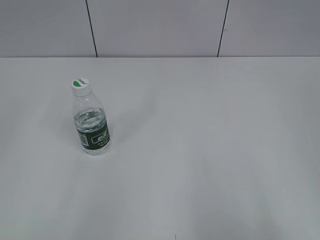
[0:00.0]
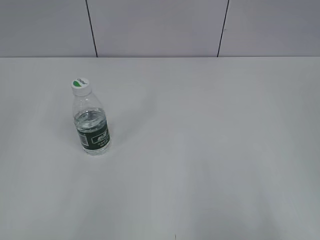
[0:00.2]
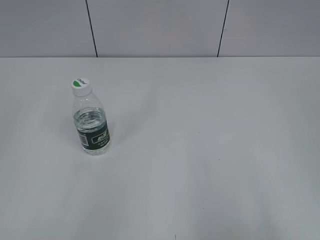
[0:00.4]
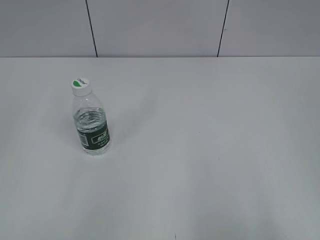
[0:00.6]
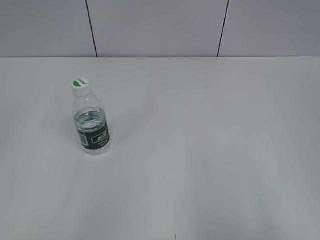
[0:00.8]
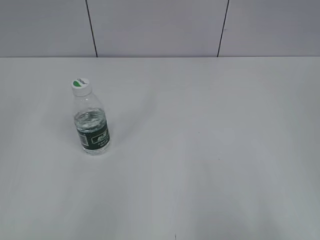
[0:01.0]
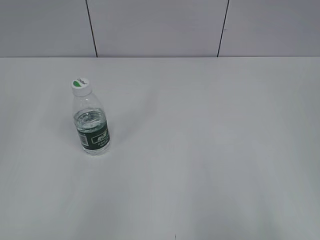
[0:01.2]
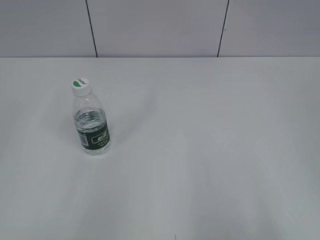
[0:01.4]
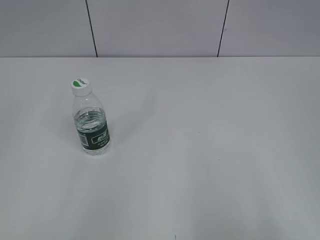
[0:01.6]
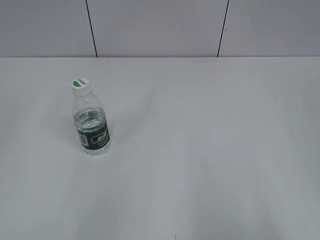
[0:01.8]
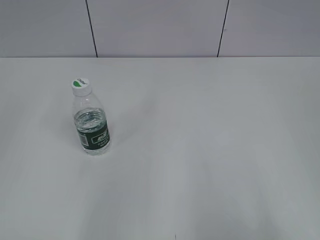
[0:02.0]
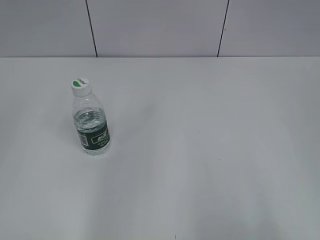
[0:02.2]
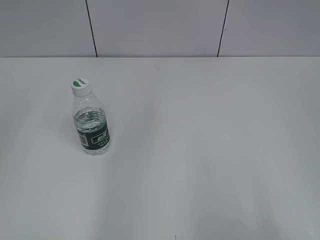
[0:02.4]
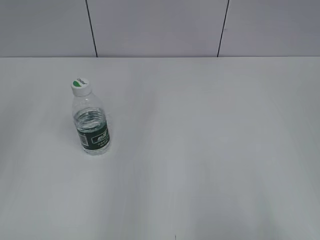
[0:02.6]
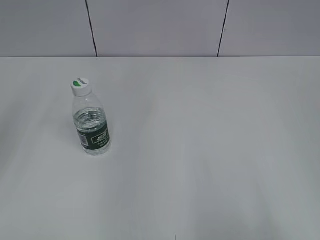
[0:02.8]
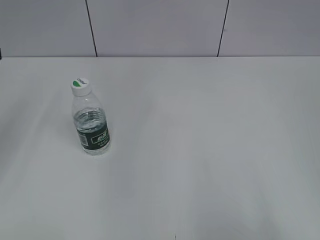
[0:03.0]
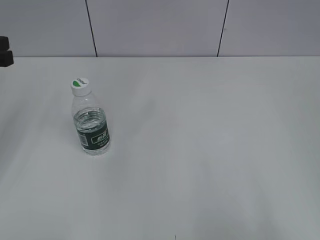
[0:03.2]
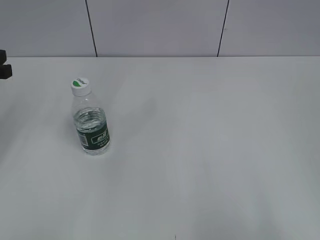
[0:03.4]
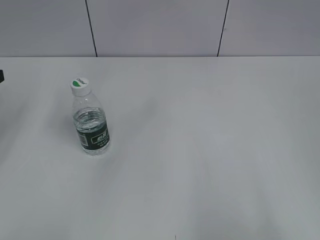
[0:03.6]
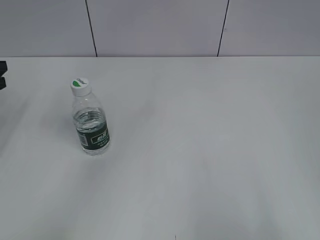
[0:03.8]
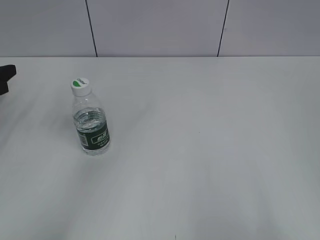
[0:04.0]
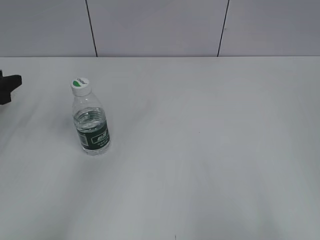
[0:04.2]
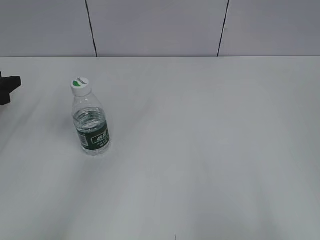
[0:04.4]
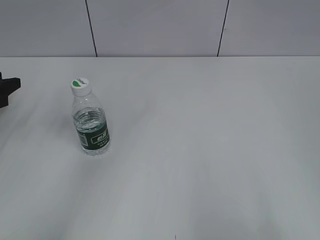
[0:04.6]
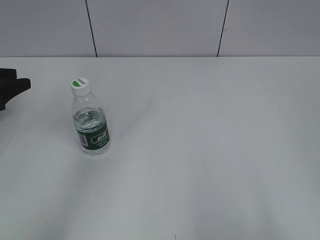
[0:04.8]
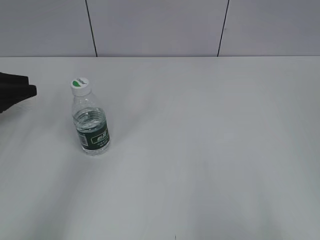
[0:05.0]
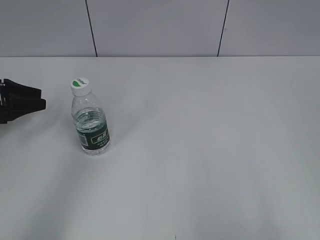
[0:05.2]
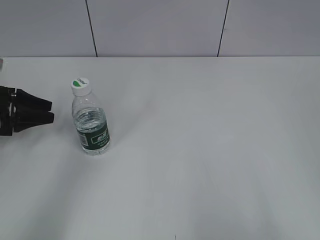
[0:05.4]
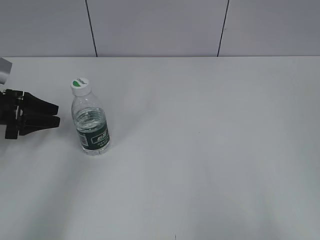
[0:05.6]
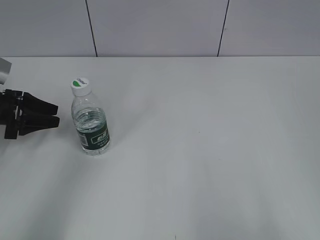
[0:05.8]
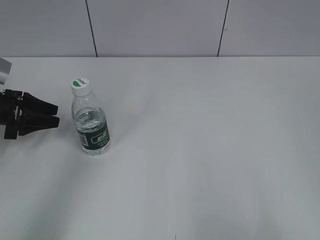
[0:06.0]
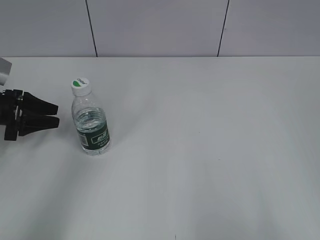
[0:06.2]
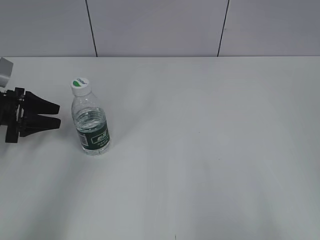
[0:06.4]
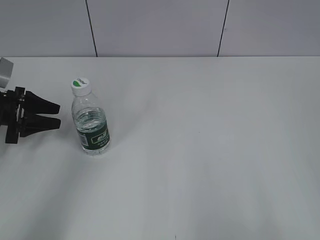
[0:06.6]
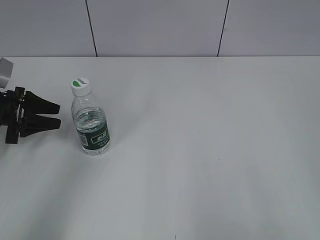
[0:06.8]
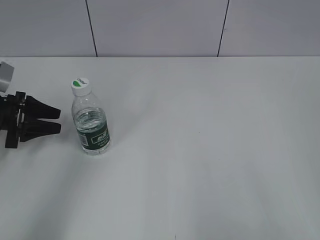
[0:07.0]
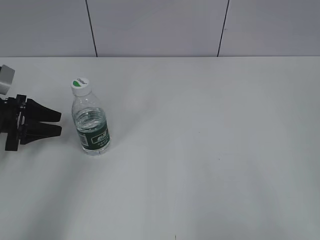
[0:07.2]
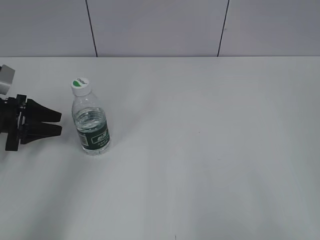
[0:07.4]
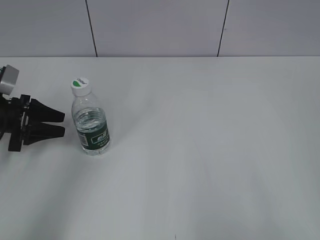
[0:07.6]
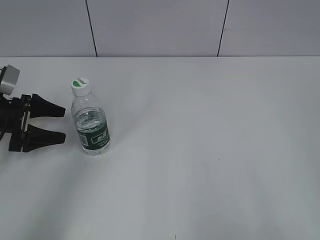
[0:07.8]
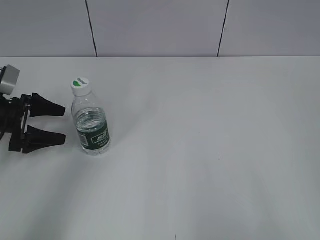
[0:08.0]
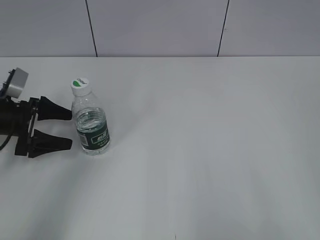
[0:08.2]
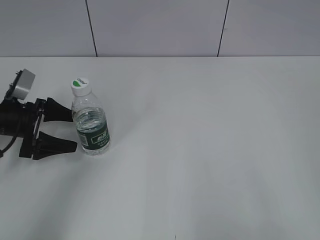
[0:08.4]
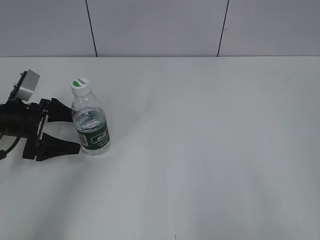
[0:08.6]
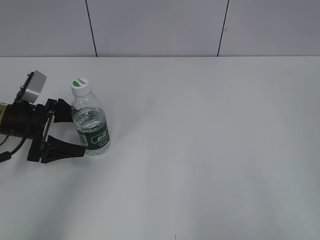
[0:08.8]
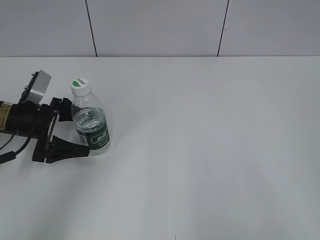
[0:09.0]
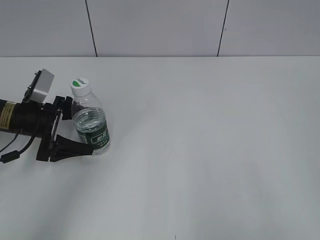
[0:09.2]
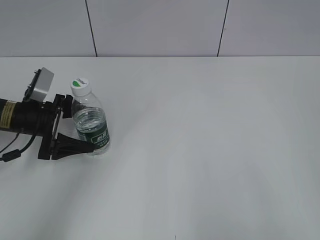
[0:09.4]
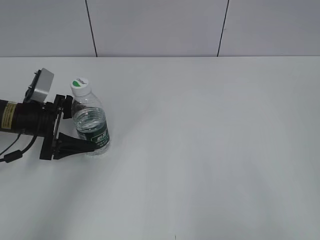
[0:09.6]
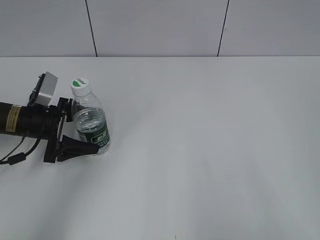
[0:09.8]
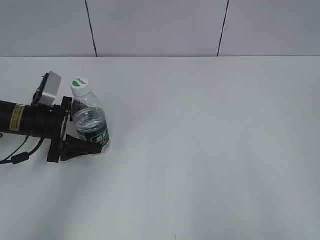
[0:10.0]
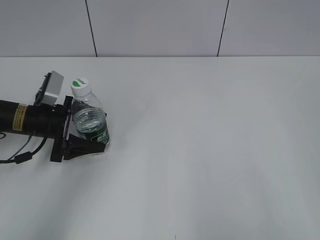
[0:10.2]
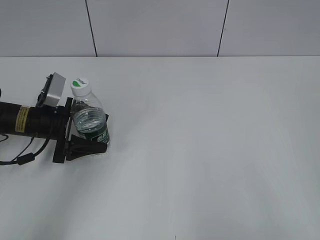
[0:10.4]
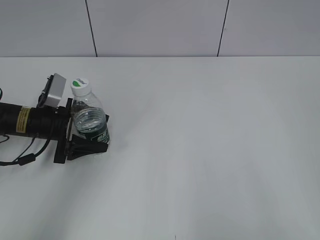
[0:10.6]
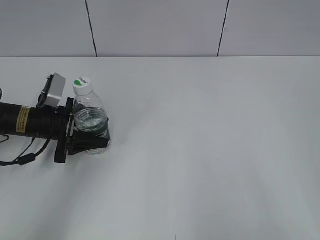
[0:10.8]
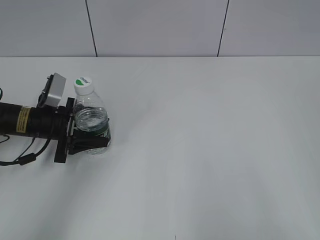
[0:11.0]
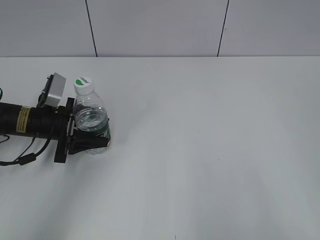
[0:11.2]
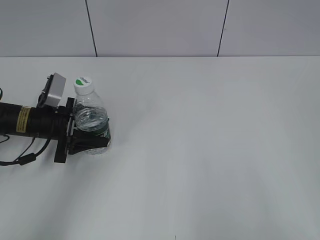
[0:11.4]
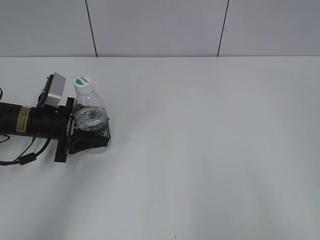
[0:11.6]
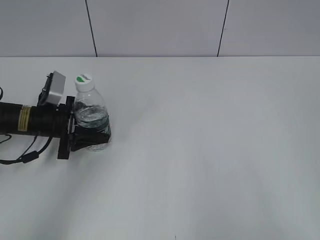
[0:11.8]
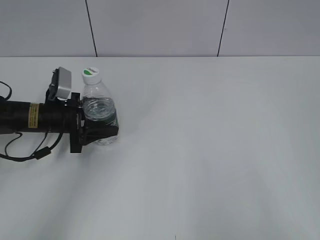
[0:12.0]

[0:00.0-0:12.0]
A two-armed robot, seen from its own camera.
Step, 0:00.0 to 0:11.4: Grasp the bottle and move it to the center of the table with the left gripper.
0:03.0 to 0:04.4: The left gripper shifts roughly 15 cm downward, forward and to the left.
0:04.4 to 0:06.0: The left gripper changes place by roughly 5 cm.
0:06.0 to 0:07.6: There are only small adjustments of the grippers.
0:07.6 to 0:09.0: The left gripper goes approximately 5 cm to the right, and opens up.
0:09.0 to 0:10.4: The grippers make only small movements.
0:10.4 to 0:12.0: The left gripper closes up.

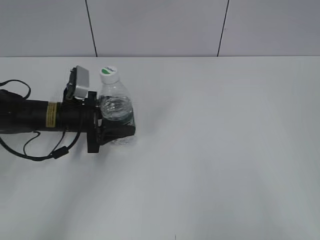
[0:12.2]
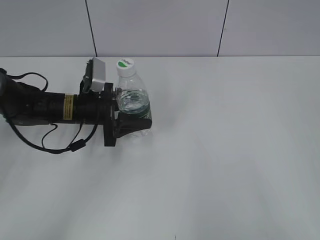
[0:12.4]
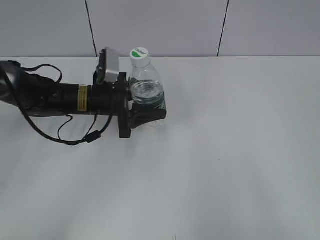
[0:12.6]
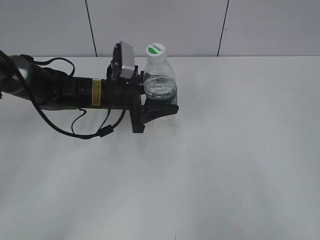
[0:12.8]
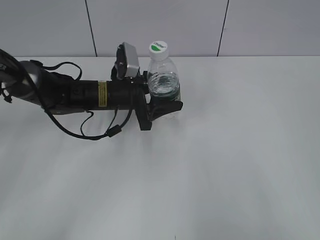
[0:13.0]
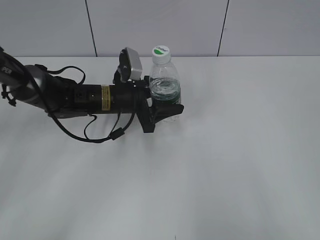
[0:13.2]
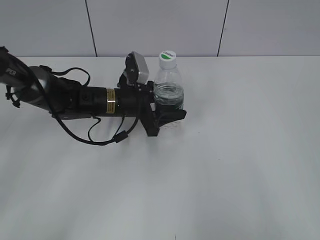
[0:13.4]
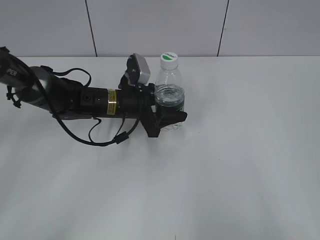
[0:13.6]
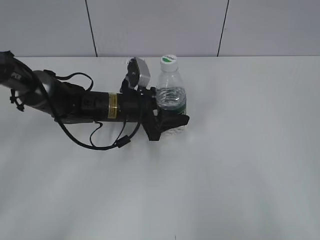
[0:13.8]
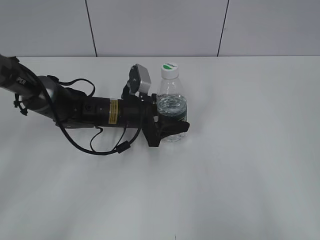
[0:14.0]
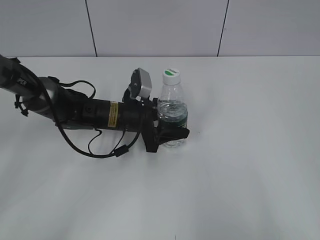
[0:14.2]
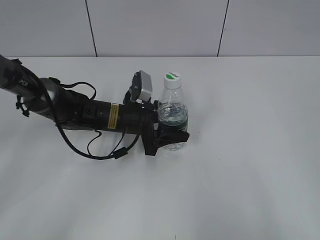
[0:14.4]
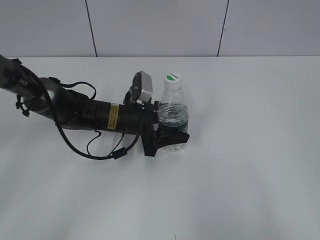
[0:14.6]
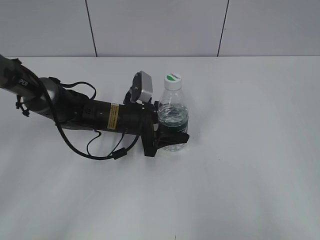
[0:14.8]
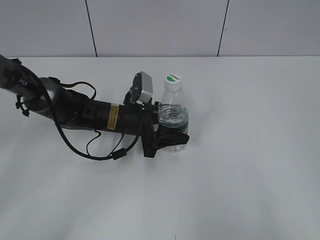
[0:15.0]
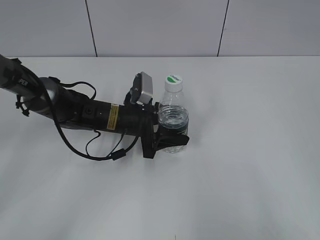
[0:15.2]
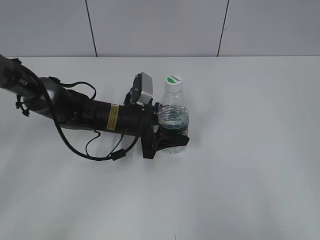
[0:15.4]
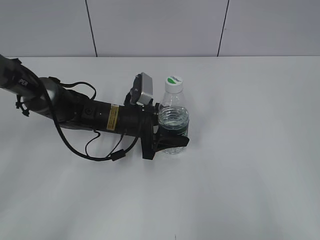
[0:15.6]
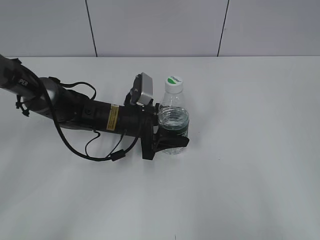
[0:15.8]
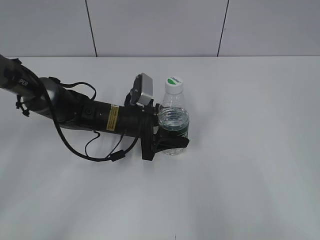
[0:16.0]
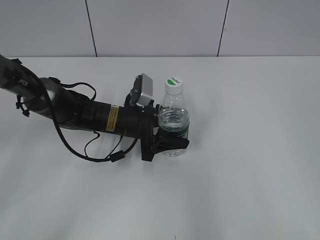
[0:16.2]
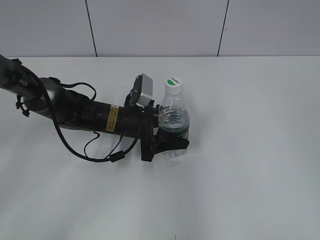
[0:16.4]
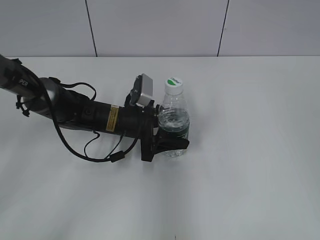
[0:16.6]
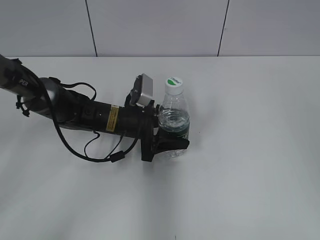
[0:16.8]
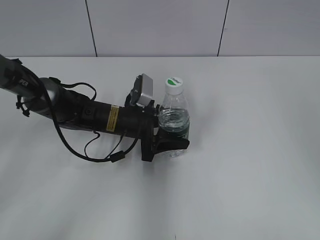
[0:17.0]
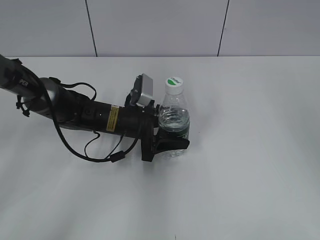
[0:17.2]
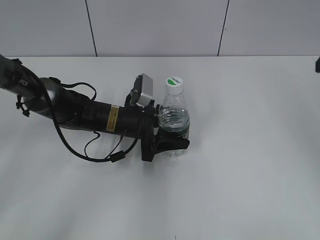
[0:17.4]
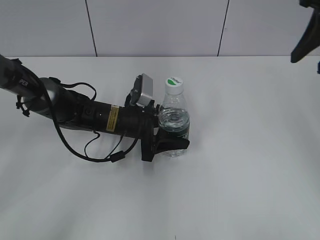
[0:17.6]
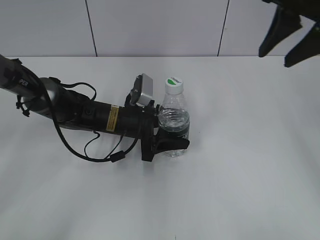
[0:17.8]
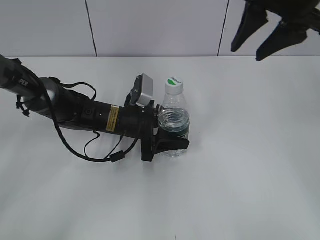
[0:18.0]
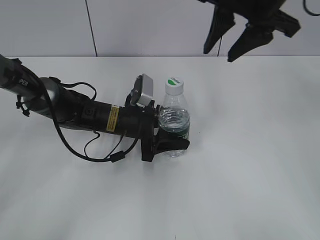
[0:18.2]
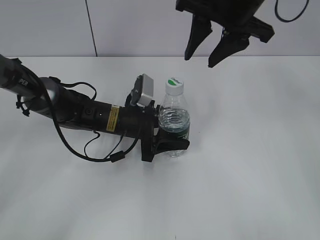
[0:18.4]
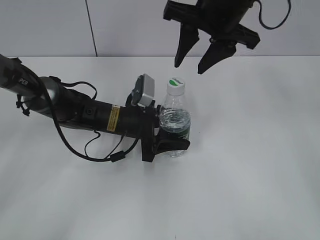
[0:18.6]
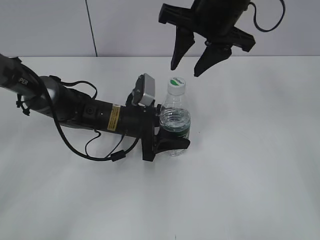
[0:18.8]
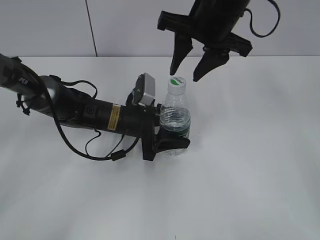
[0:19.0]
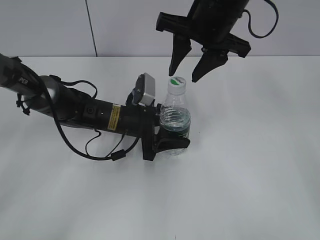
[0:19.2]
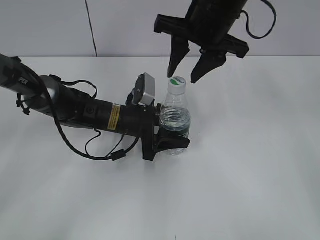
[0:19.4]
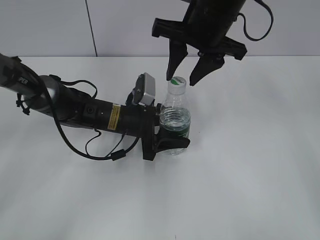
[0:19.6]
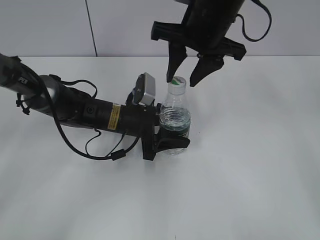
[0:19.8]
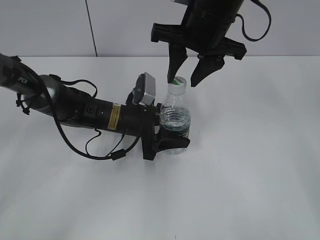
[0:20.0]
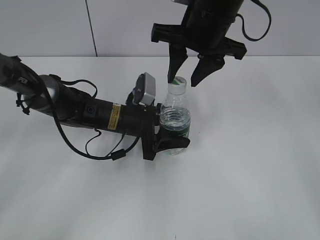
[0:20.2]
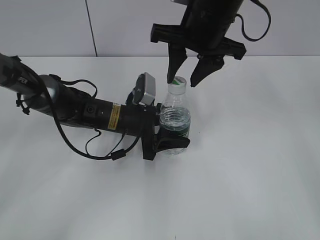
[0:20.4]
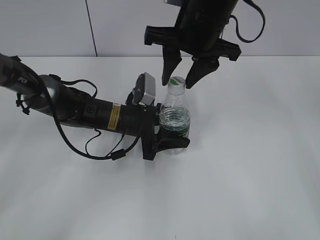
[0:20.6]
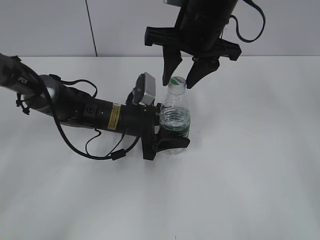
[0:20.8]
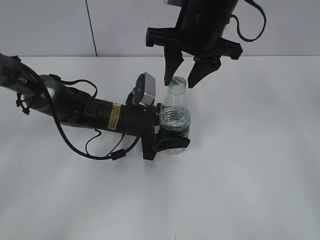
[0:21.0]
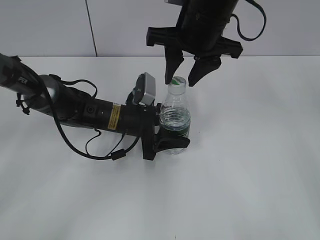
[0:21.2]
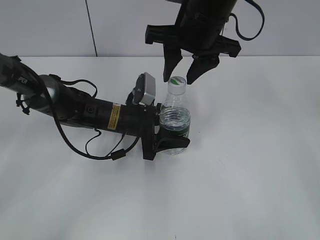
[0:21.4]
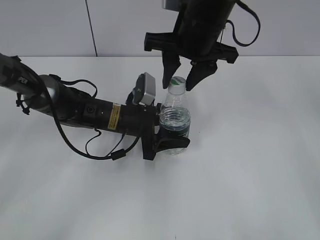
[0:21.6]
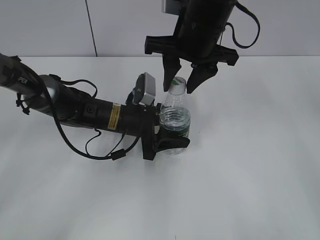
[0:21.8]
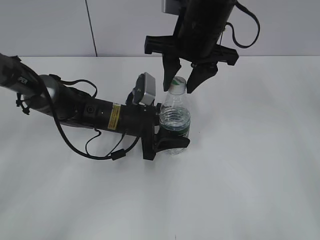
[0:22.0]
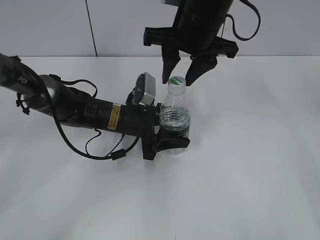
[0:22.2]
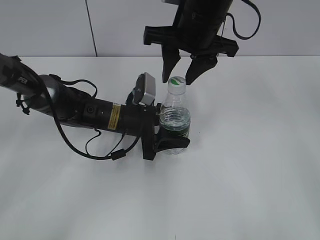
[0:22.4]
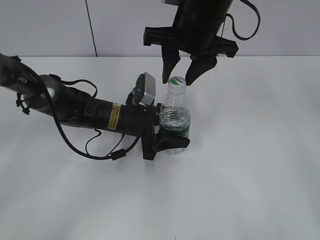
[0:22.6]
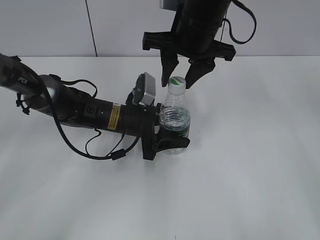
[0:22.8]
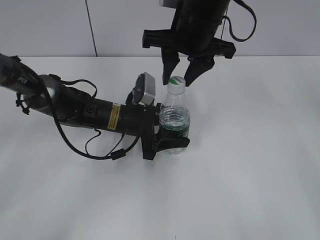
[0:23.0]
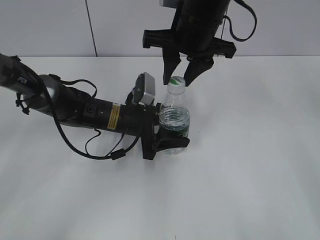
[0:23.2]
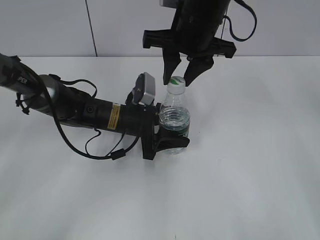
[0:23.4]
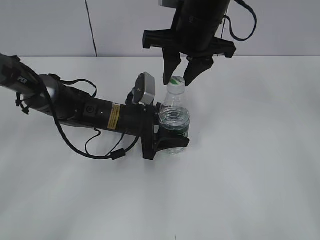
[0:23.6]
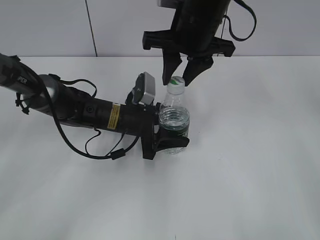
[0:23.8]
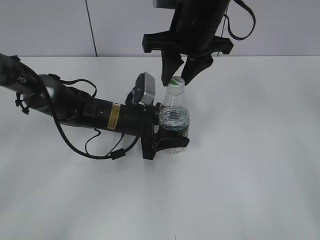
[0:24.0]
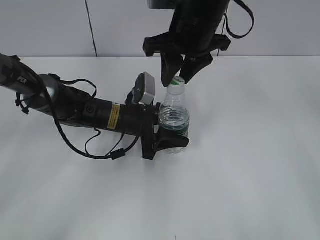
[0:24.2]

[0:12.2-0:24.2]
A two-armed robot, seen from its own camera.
Step, 0:12.2 to 0:16.4: Lift the bottle and move it to the center of the table with the left gripper.
0:12.2 to 0:13.8: The left gripper heads to the right, covering some 10 cm.
0:13.8 to 0:15.2: The grippers move only a little.
0:15.2 to 0:16.6: The right gripper is displaced forward and upward by some 10 cm.
0:16.6 to 0:18.2: The right gripper is displaced forward and to the left by about 30 cm.
0:18.2 to 0:19.8: The right gripper moves to the left and downward, roughly 10 cm.
0:19.8 to 0:21.2: There are only small adjustments of the grippers.
0:21.2 to 0:22.6: Neither gripper changes place.
0:22.6 to 0:24.2: The right gripper closes its fingers.
